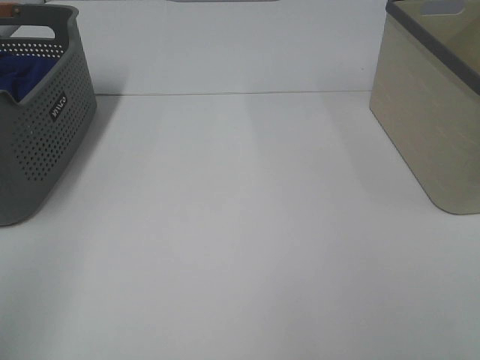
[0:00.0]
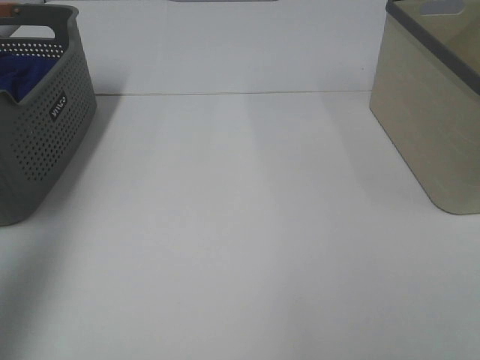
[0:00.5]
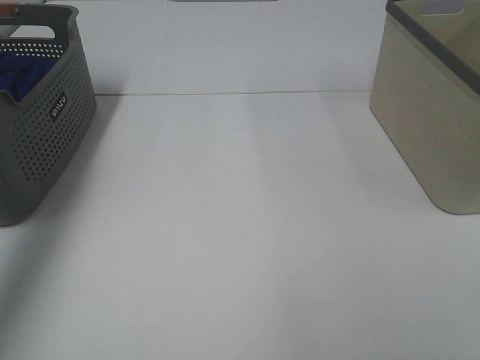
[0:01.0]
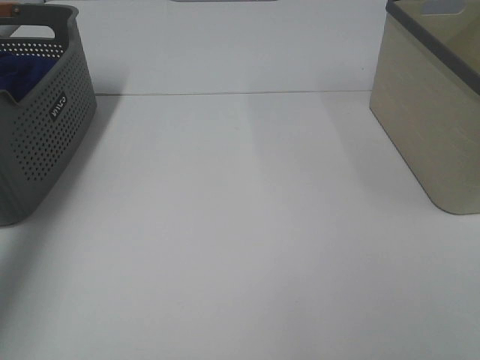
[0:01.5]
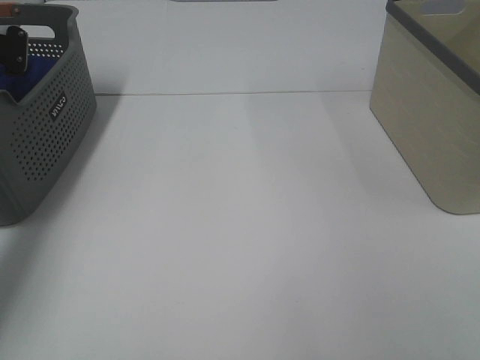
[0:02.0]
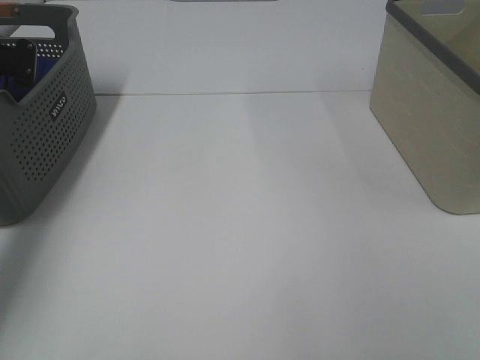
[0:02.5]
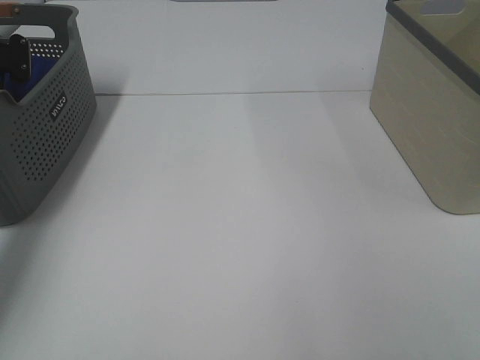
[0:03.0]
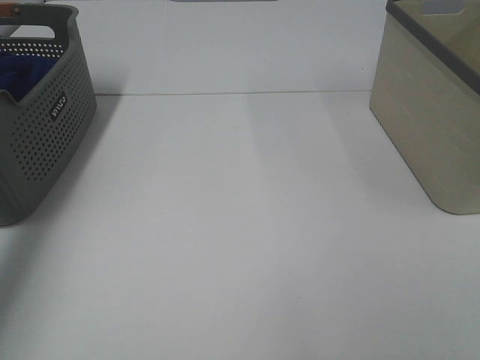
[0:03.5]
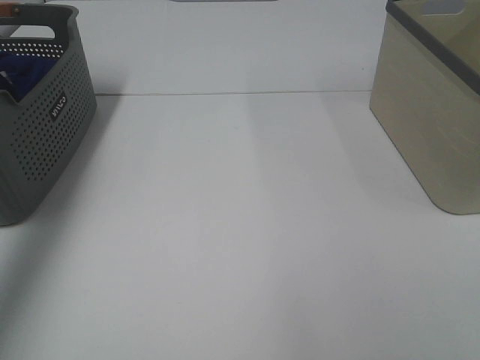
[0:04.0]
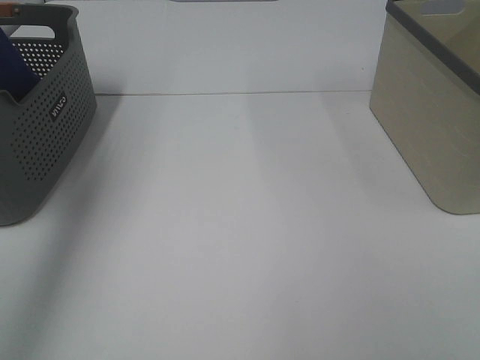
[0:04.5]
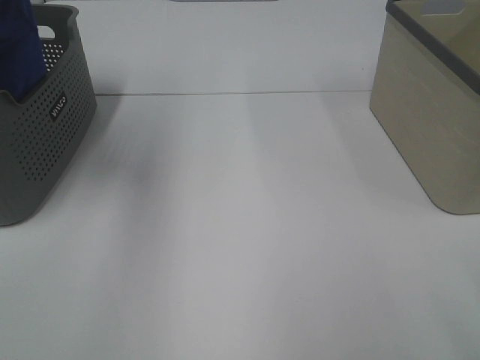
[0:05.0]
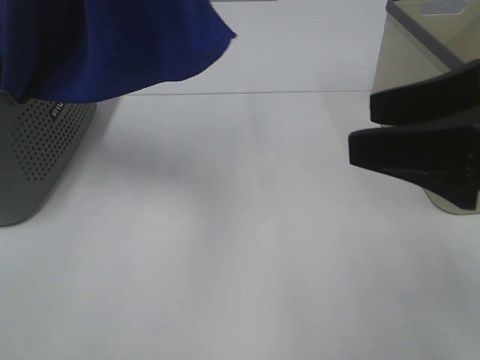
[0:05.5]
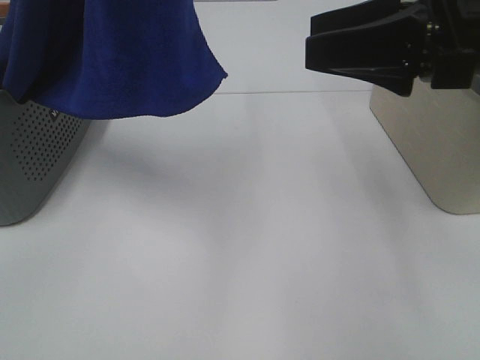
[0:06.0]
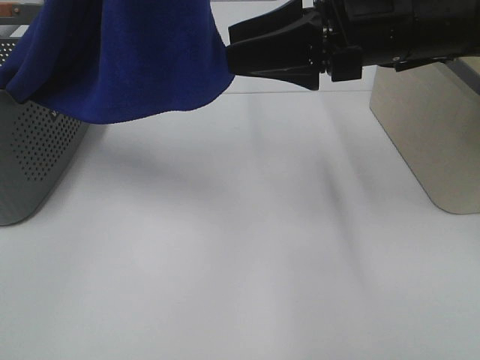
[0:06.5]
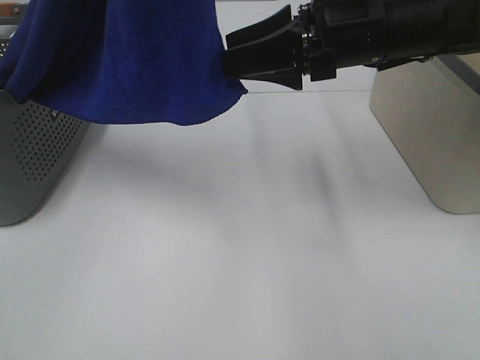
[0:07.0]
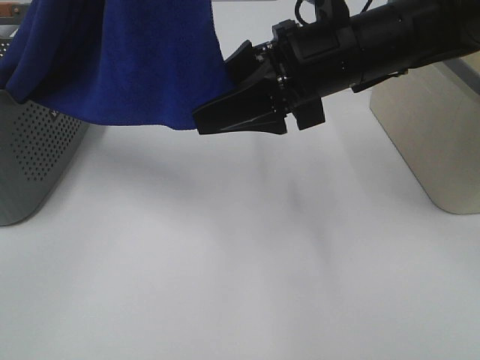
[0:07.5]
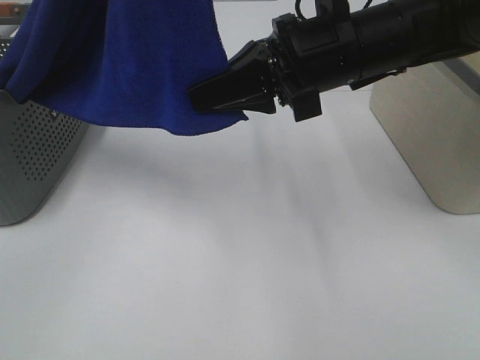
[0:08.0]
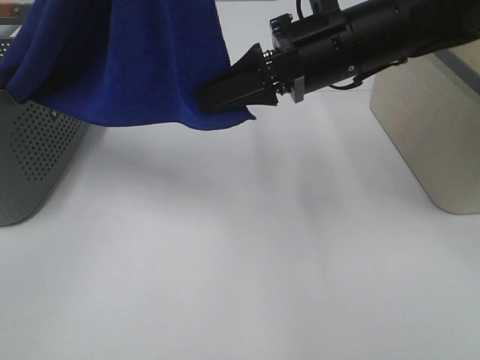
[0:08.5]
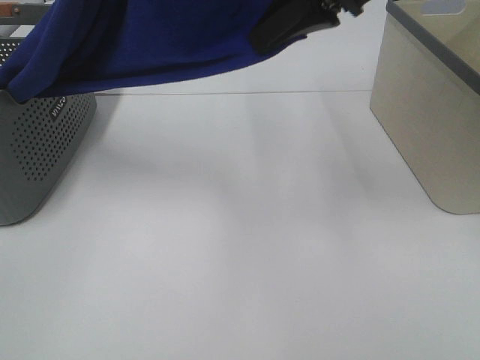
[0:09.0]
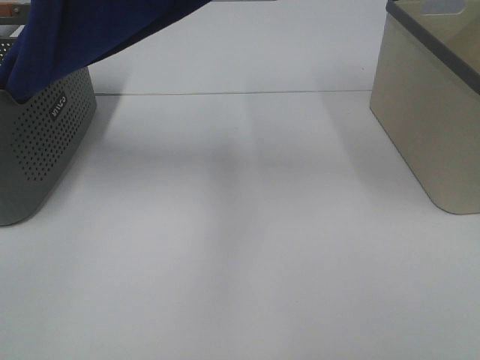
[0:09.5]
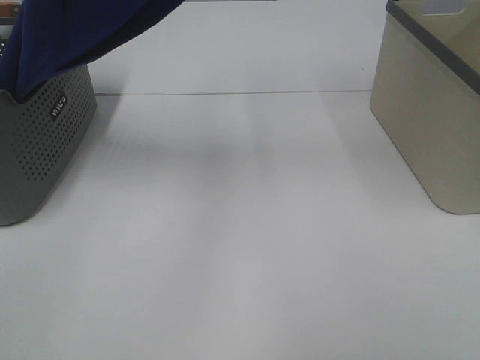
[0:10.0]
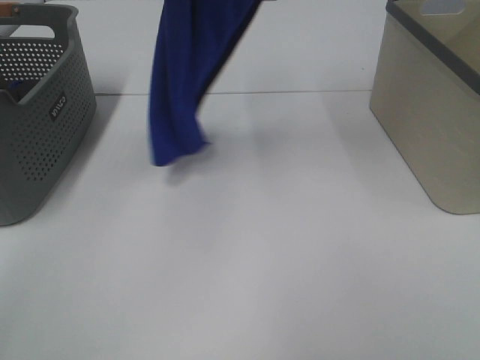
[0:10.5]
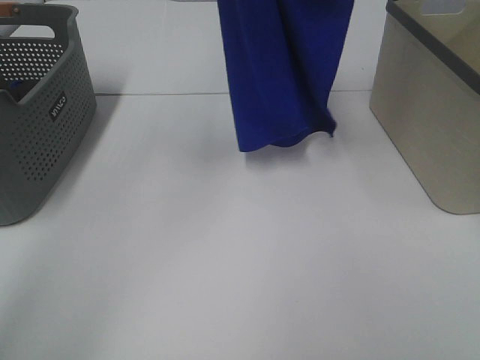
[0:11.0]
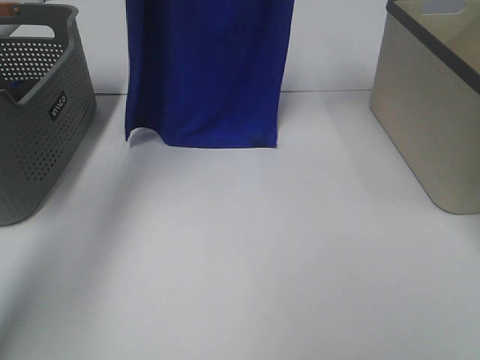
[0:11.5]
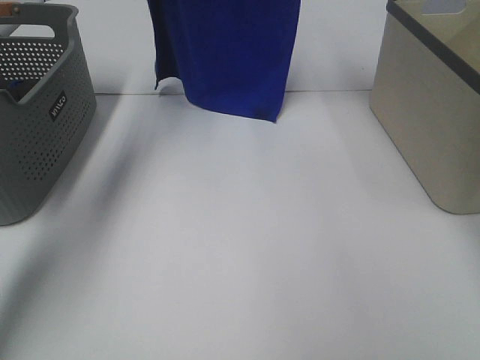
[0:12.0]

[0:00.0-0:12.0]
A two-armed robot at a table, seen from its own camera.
Task of the whole recording: Remove the towel and place it.
Step, 4.5 to 7.5 s: Right hand: grab a corner of the blue towel and straighten it.
0.0 to 2.0 s: The left gripper heads forward, covering approximately 40 cm.
2.0 to 4.0 s: The left gripper travels upward and backward by some 25 cm, and closes.
4.0 to 6.0 s: The left gripper shifts some 30 cm to the right, backward and upward. The right gripper travels forward by some 25 cm.
6.0 to 8.0 s: The right gripper travels to the left and forward by approximately 10 cm, and closes up.
8.0 to 10.0 s: The left gripper ends up roughly 5 cm from where it was, while the right gripper travels upward by about 25 cm.
10.0 to 12.0 s: The right gripper goes about 15 cm forward, while the left gripper travels forward by roughly 25 cm.

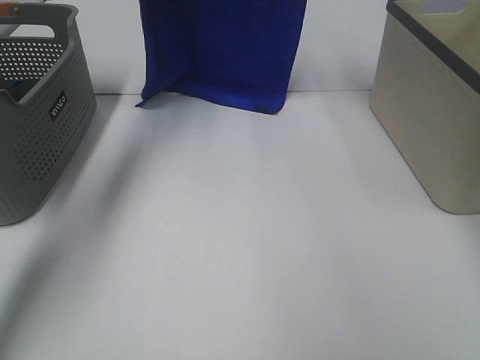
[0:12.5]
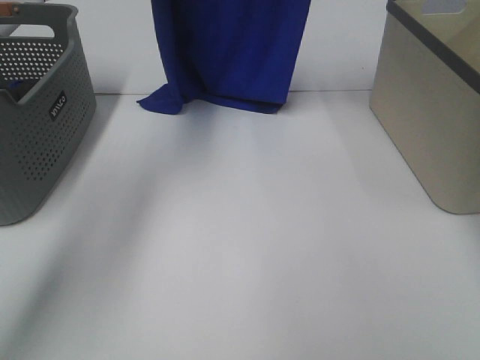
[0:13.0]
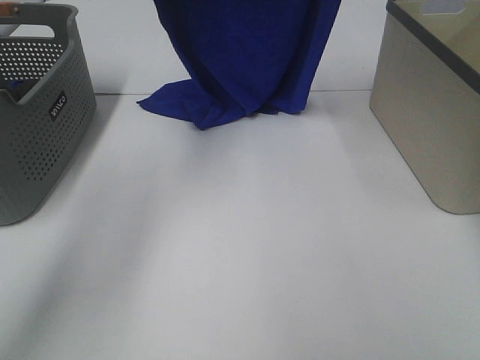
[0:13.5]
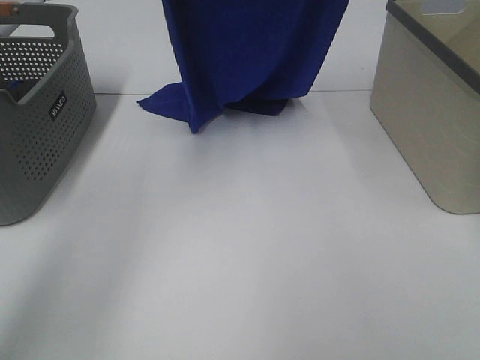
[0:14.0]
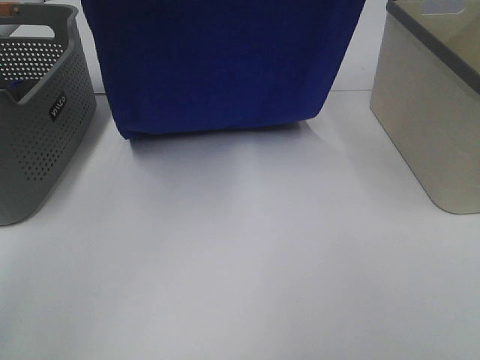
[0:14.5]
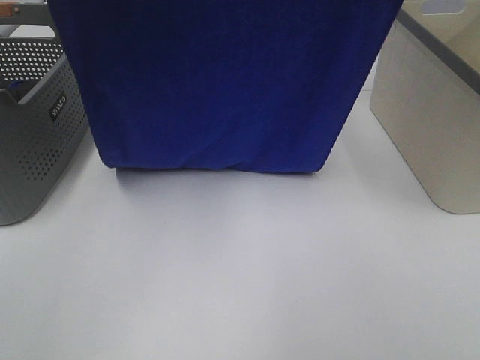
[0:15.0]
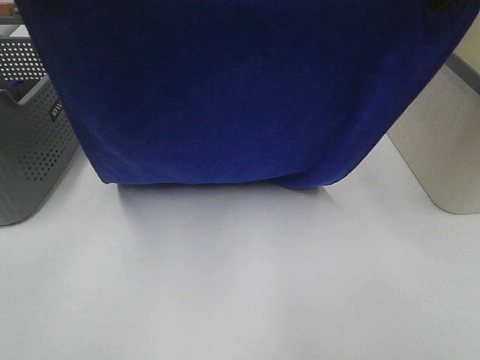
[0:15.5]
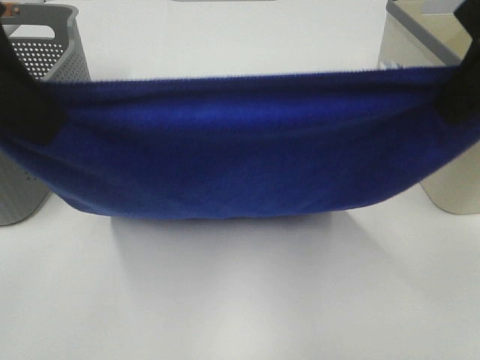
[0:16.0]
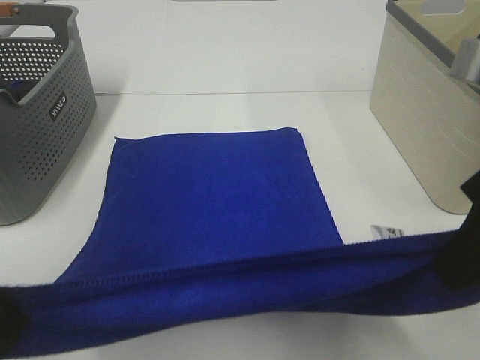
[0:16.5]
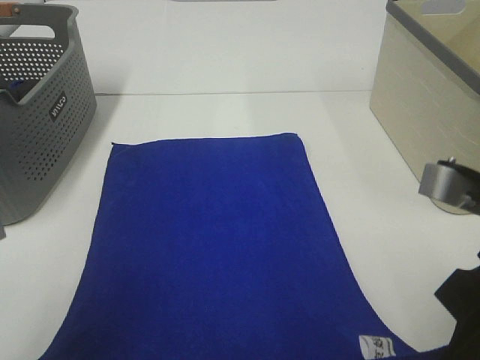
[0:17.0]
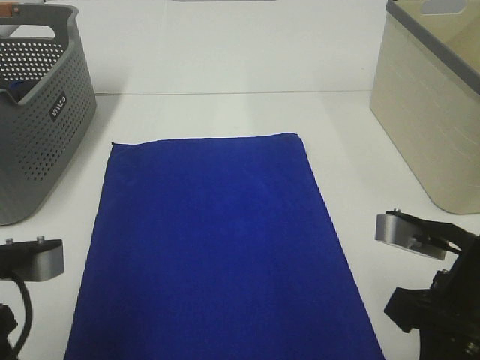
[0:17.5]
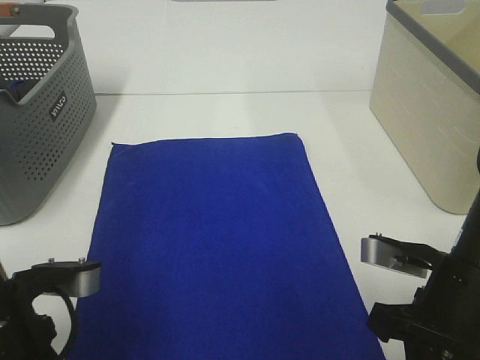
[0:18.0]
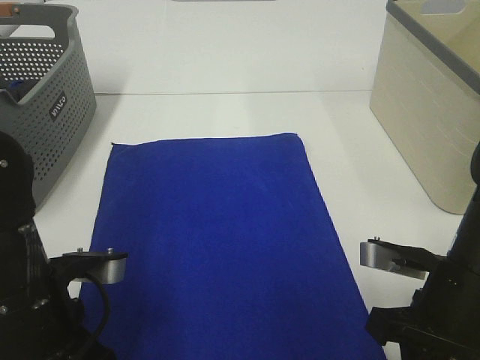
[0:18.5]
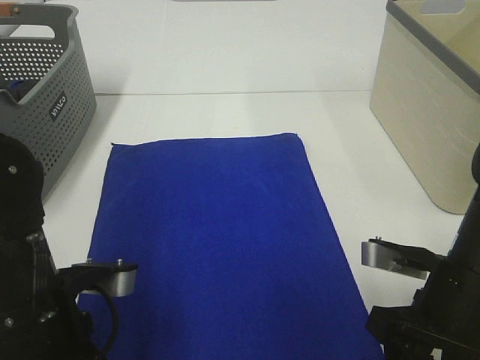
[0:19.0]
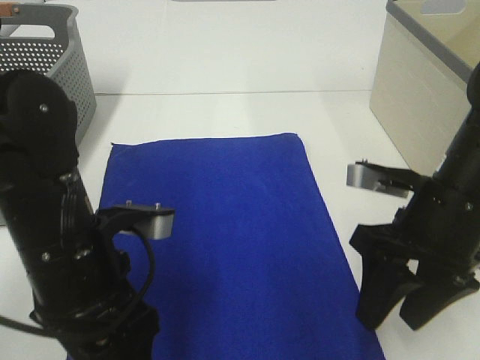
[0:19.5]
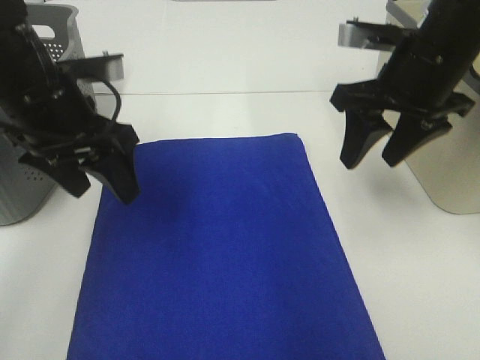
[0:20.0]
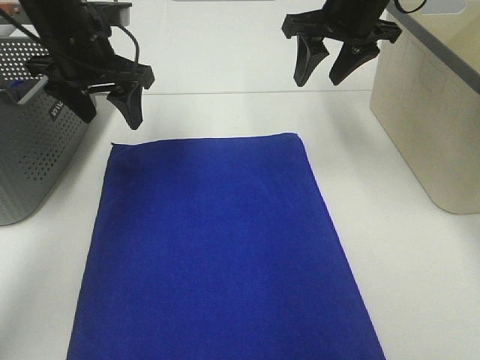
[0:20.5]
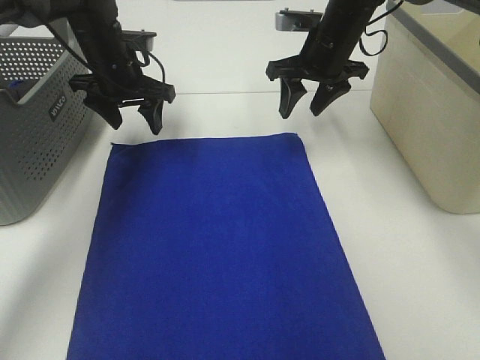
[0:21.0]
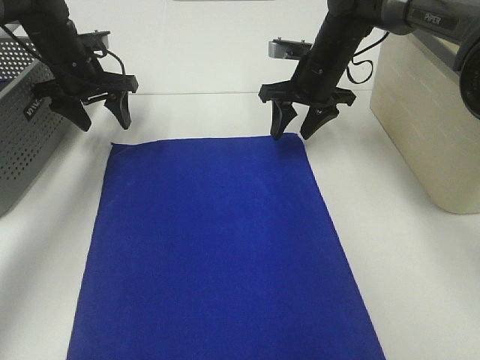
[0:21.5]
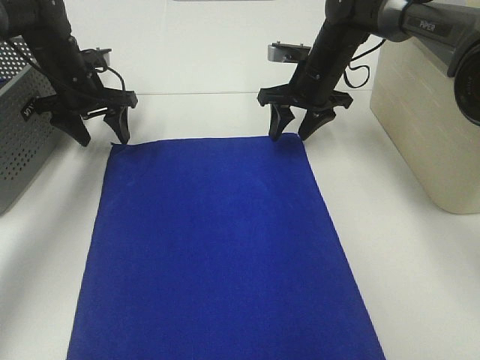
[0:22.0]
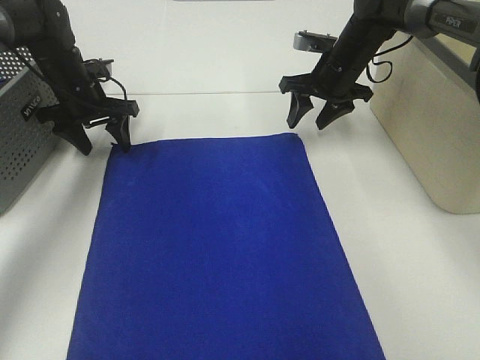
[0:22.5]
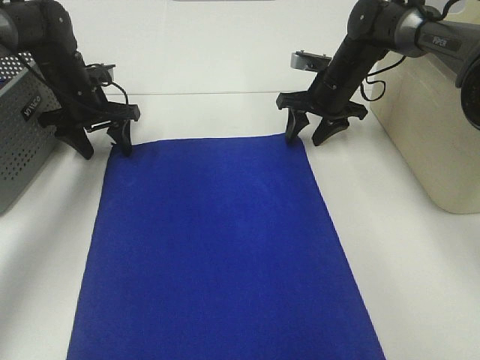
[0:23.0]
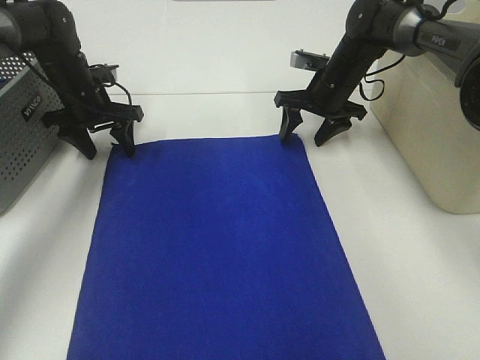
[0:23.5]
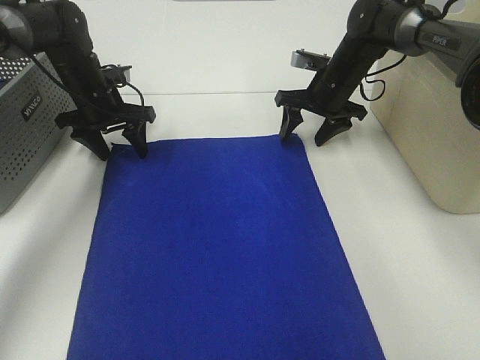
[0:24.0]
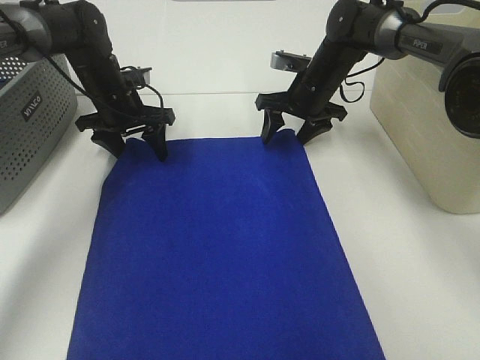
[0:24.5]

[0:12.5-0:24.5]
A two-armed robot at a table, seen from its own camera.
Task of the whole recording: Remove the towel and place it.
Step, 14.5 to 22.0 s: Left hand:adjust the blue towel.
Step, 14.5 to 22.0 s: Right hand:adjust the blue towel.
12.5 to 14.5 s: Both grippers move backward, roughly 20 cm.
14.5 to 16.5 s: The grippers both shift backward and downward by approximately 25 cm.
16.5 to 18.5 s: Both grippers move downward, some 15 cm.
18.5 to 20.5 s: The two grippers go roughly 30 cm forward and upward. The right gripper opens up; the left gripper opens up.
20.5 to 22.5 s: The right gripper heads downward and forward, covering some 15 cm, while the left gripper moves downward, forward and to the left, approximately 15 cm.
22.5 to 24.5 s: The left gripper travels to the right by some 5 cm.

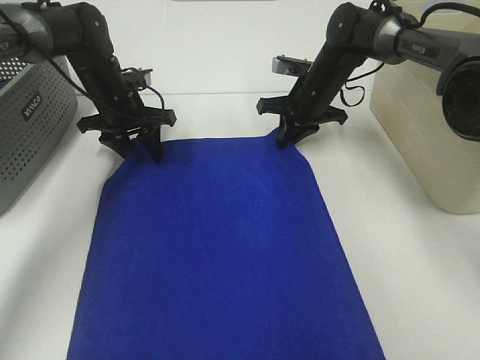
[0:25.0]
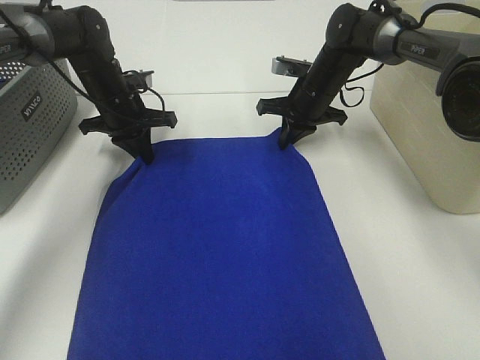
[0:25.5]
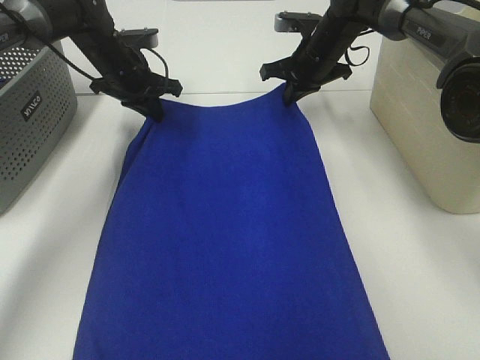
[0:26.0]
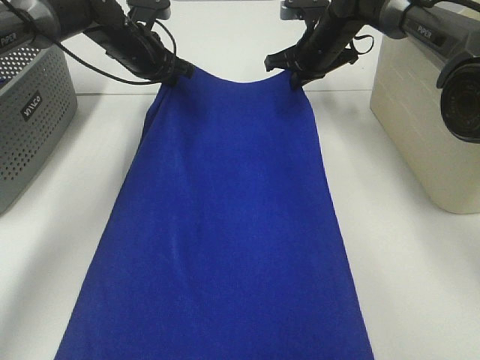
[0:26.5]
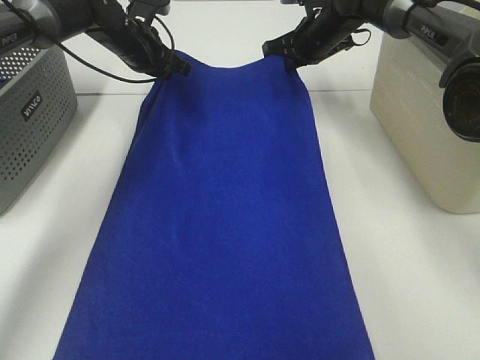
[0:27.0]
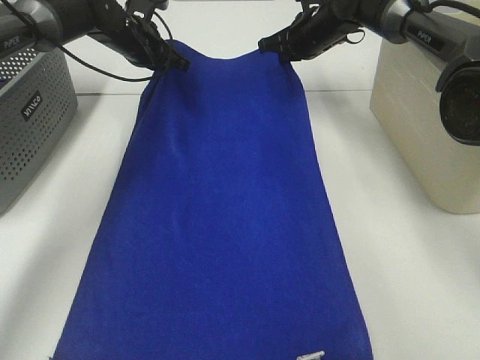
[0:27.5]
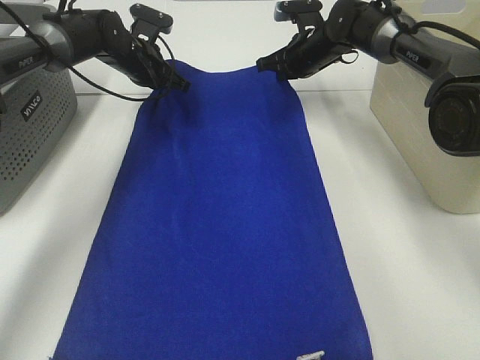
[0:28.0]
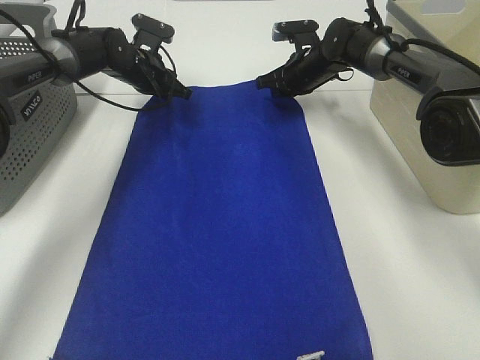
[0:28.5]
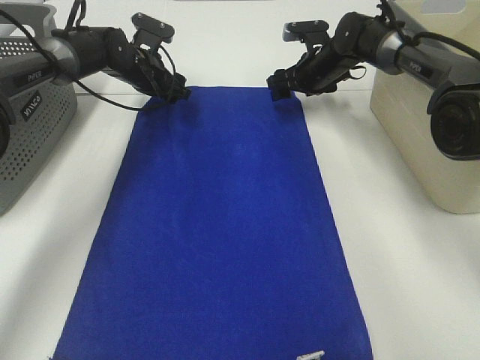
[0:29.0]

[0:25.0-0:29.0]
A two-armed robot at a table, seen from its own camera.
Task of the whole recording: Remove the towel and place it.
25.0 to 27.0 s: The left gripper is displaced forward and upward by approximately 10 cm, and closes its fingers; the right gripper is displaced upward and forward by roughly 10 cm.
27.0 to 29.0 s: The grippers both shift downward by roughly 5 cm. The right gripper opens its fingers, while the left gripper opens its fingers.
